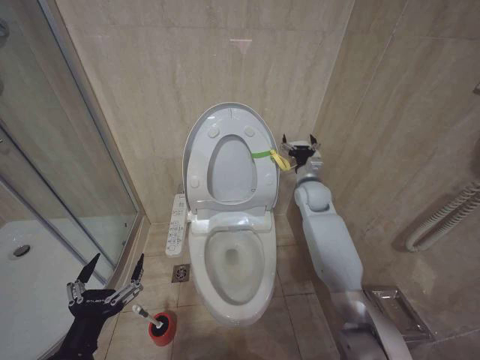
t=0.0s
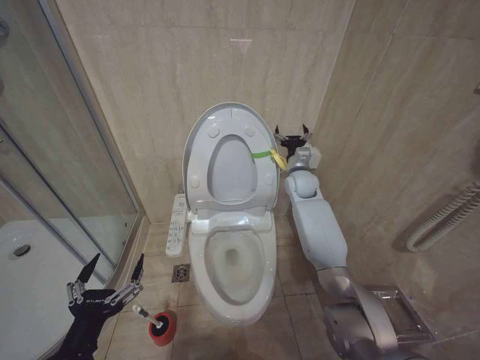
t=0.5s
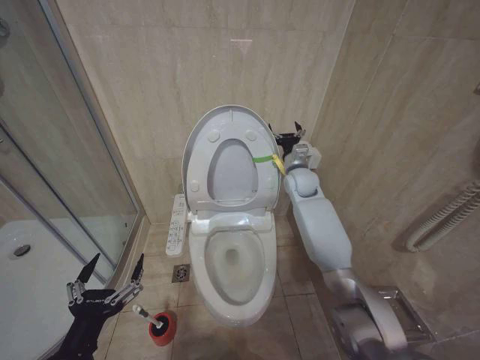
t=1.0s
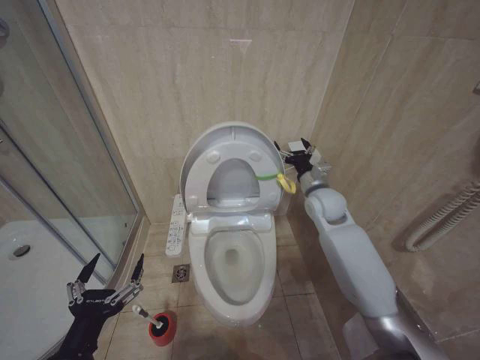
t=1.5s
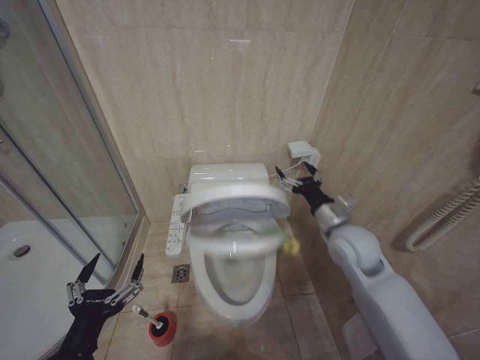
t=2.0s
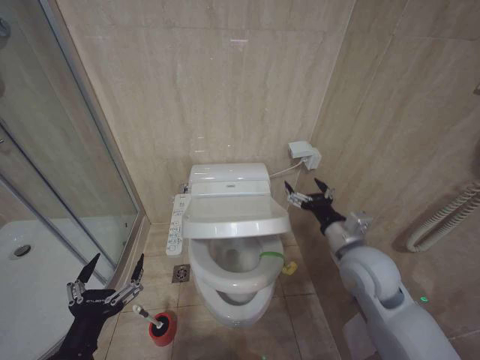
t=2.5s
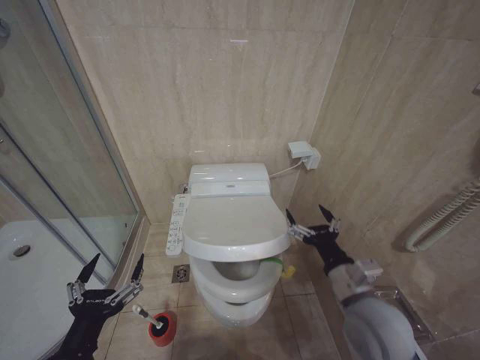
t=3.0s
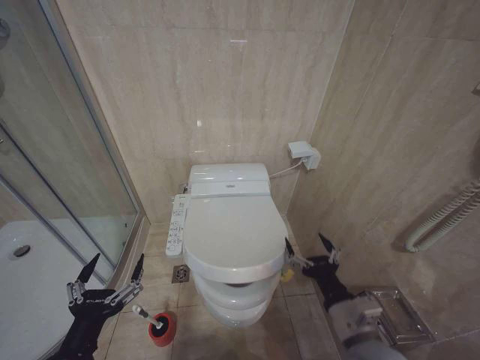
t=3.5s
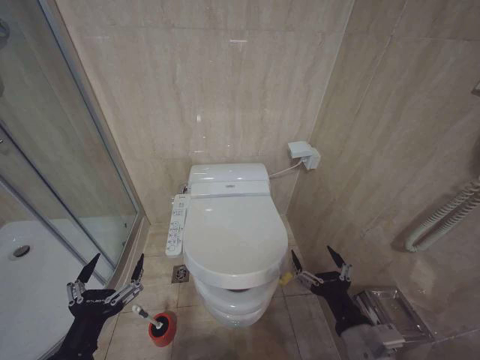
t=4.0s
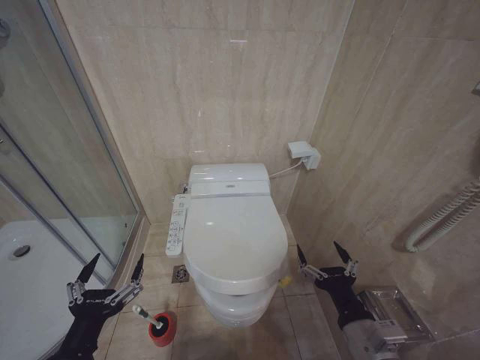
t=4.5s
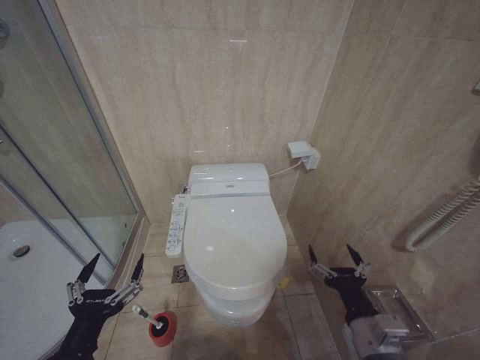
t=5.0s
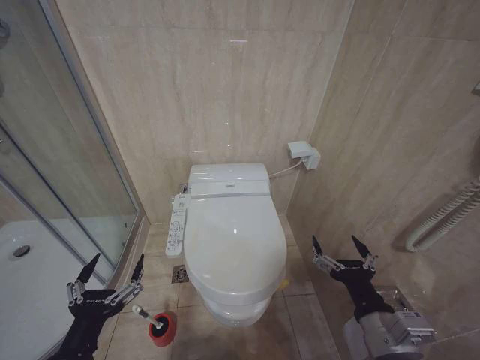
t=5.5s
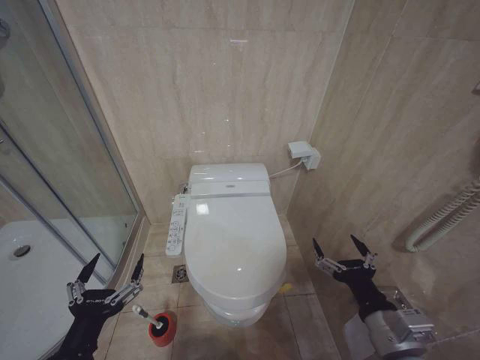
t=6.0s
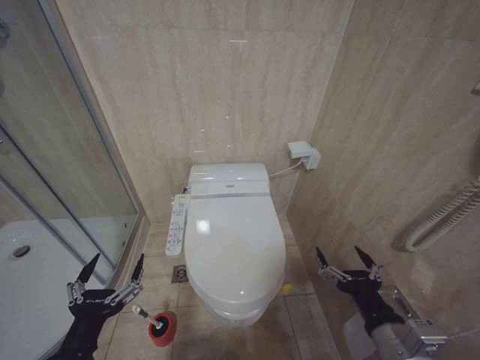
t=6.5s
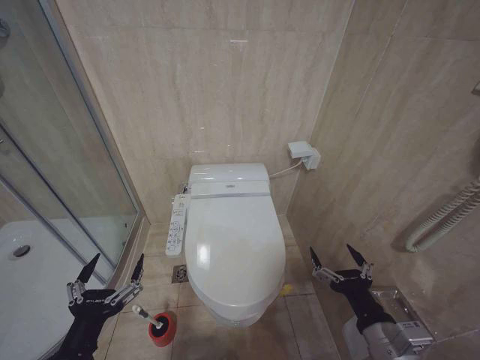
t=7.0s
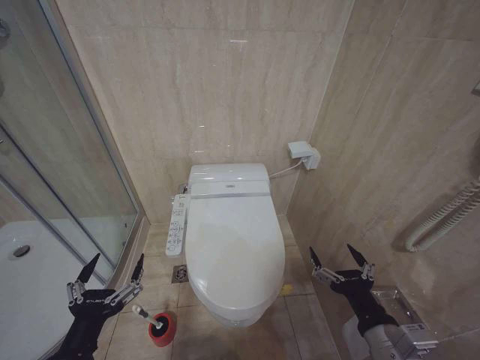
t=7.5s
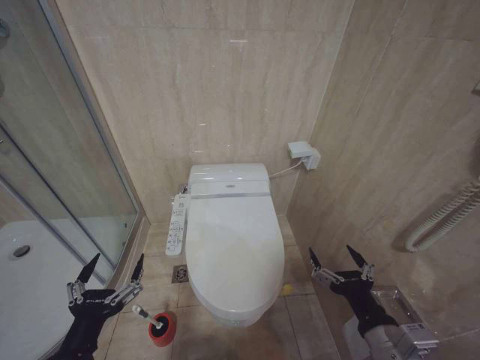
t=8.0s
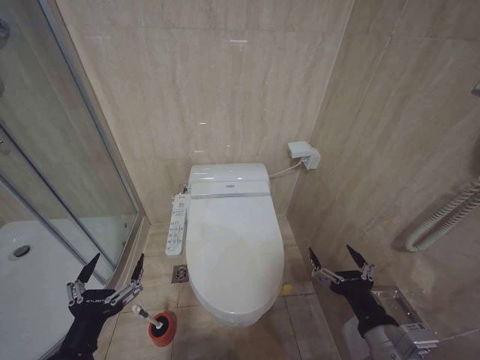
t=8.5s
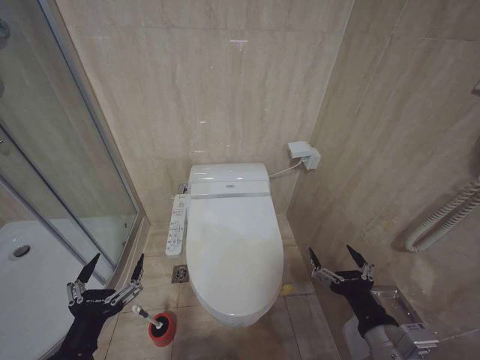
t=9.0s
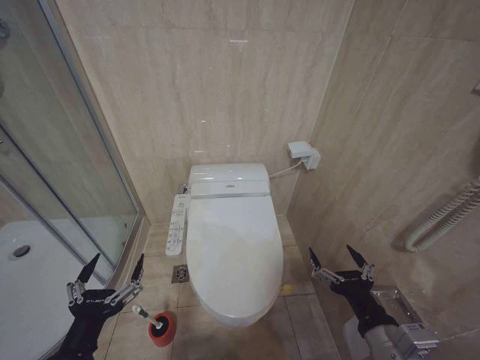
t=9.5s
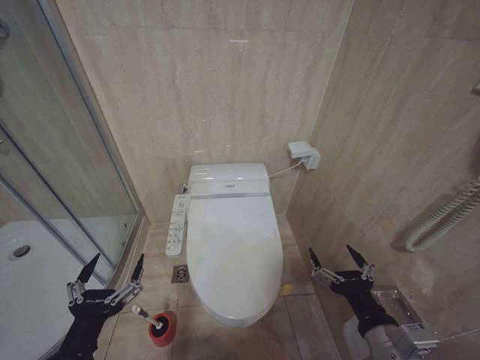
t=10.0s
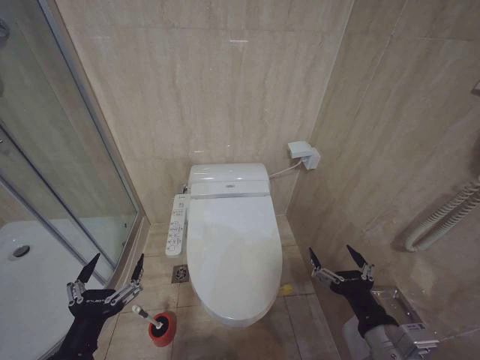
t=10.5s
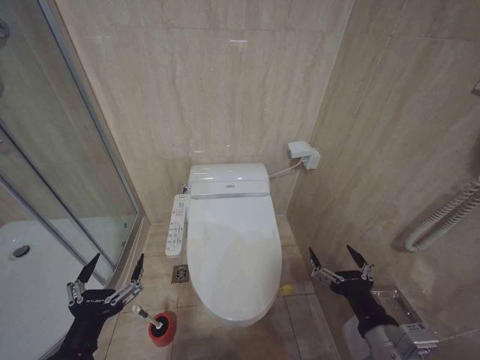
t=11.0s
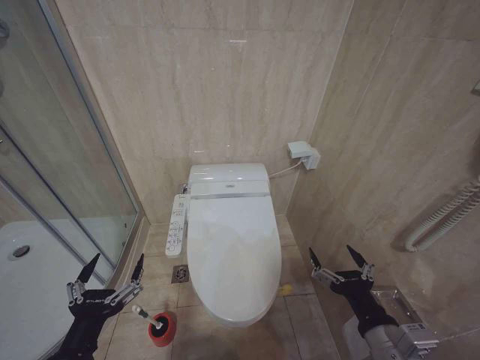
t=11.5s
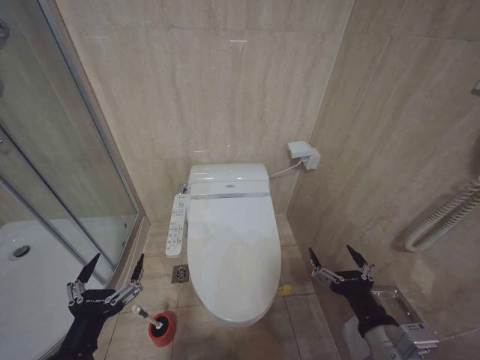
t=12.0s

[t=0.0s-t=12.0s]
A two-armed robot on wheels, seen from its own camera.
Task of the whole recording: Open the toilet lid, clean the toilet bowl with a toilet brush, close the toilet lid, and flush.
t=0.0s to t=2.0s: The right gripper moves backward, about 15 cm.
t=2.0s to t=4.0s: The right gripper shifts roughly 25 cm backward.
t=4.0s to t=6.0s: There are only small adjustments of the grippers.
t=6.0s to t=8.0s: The grippers make only small movements.
t=8.0s to t=12.0s: The two grippers keep their place.

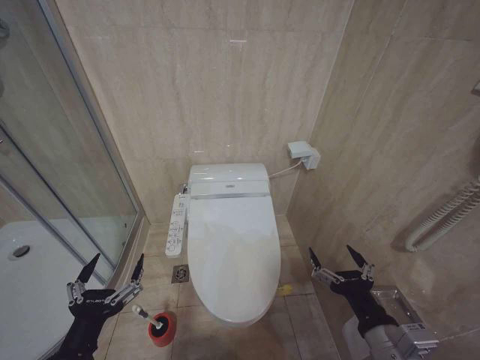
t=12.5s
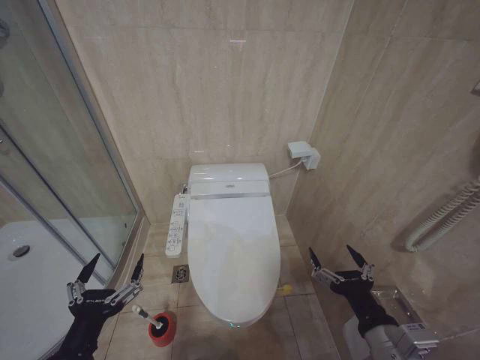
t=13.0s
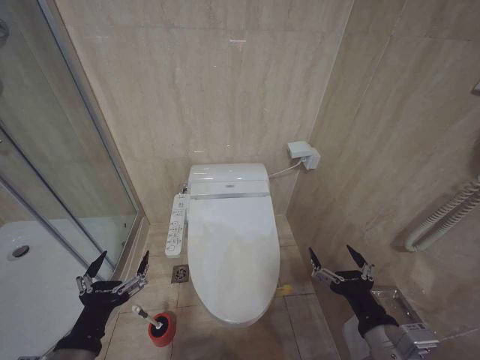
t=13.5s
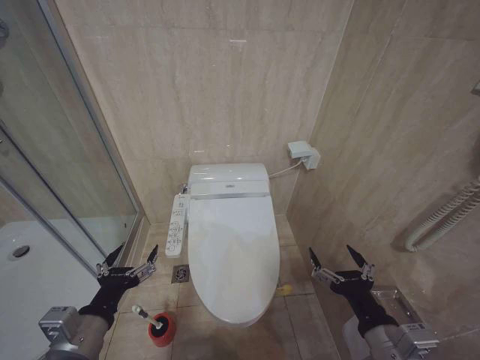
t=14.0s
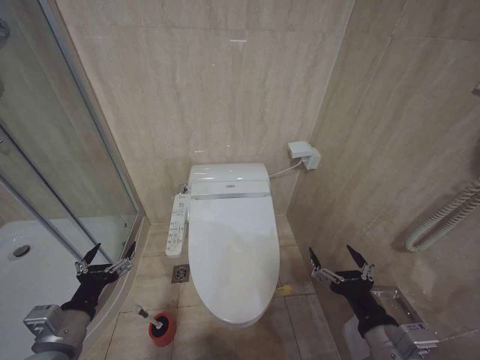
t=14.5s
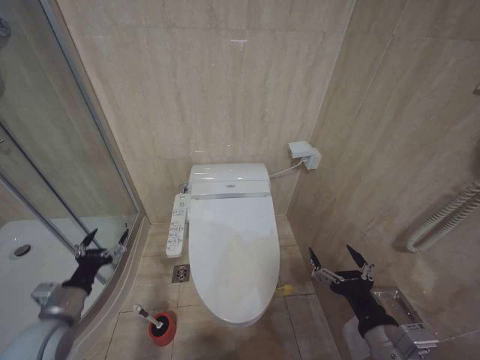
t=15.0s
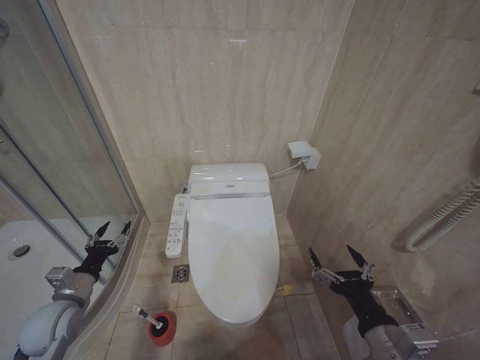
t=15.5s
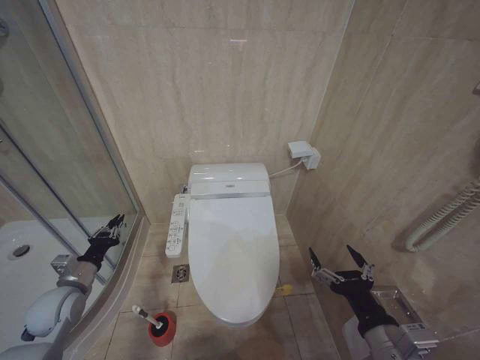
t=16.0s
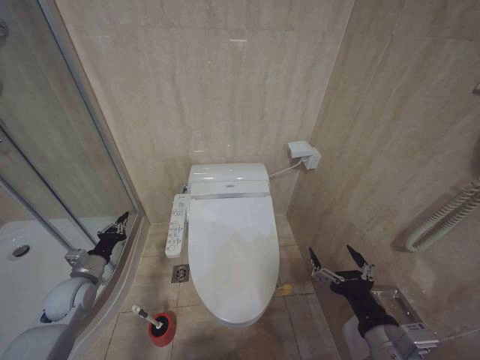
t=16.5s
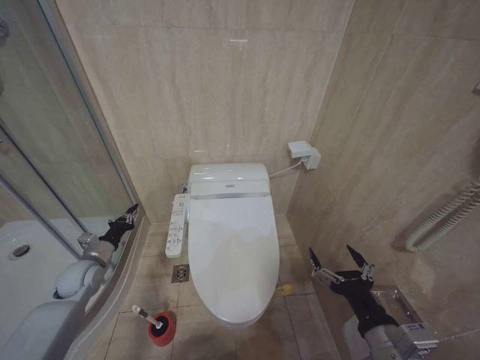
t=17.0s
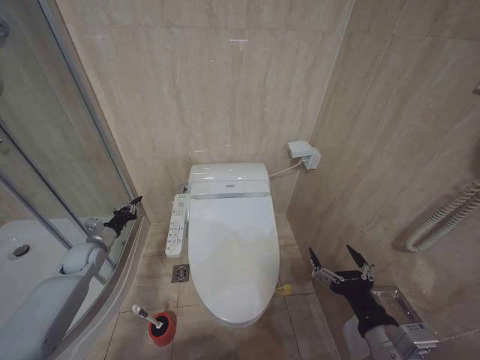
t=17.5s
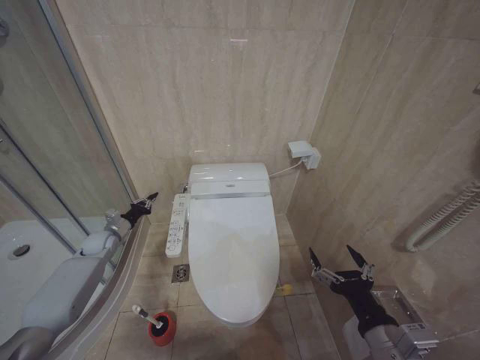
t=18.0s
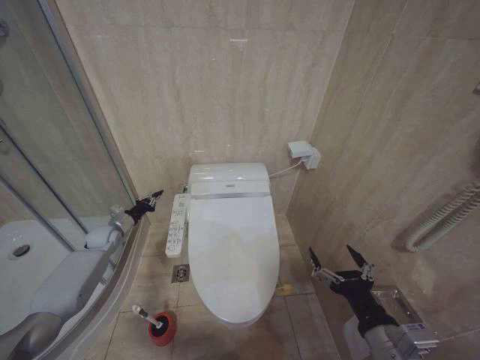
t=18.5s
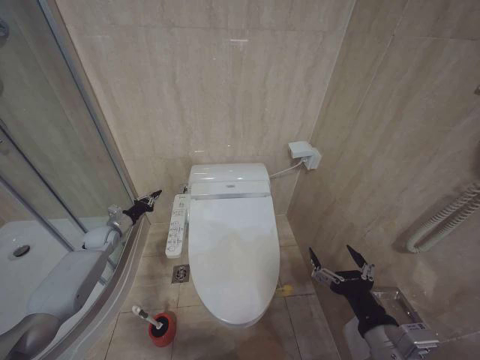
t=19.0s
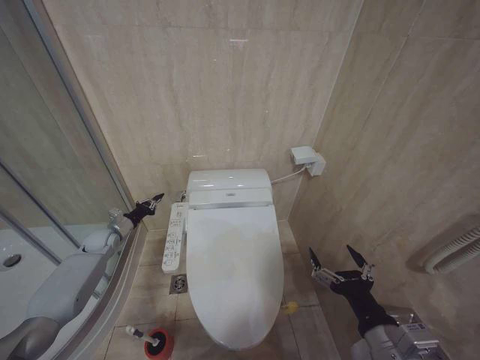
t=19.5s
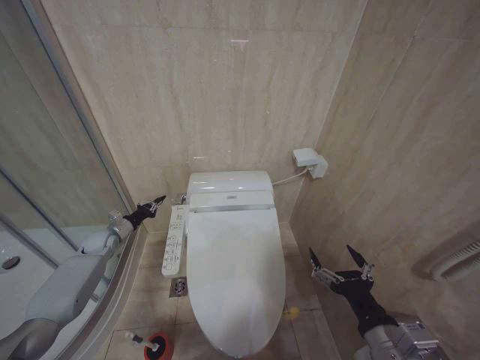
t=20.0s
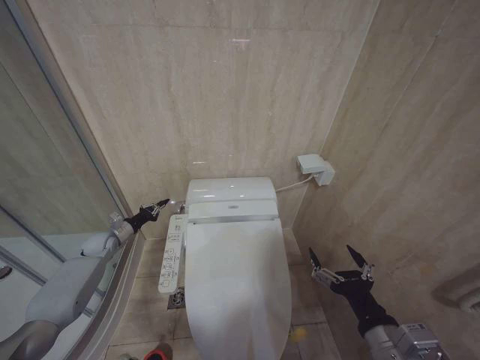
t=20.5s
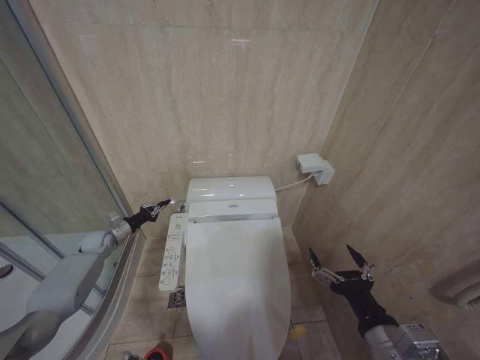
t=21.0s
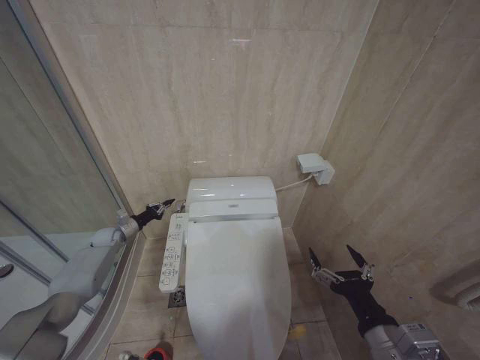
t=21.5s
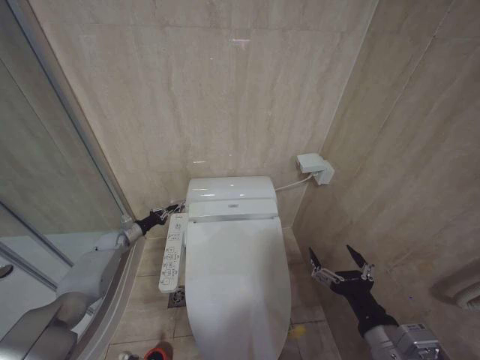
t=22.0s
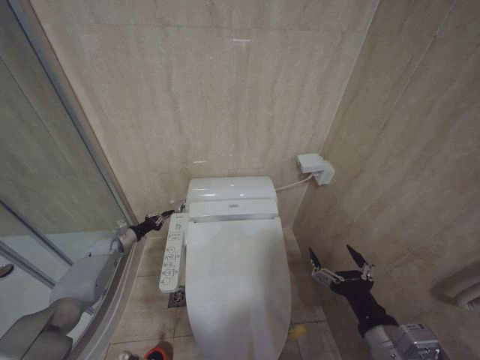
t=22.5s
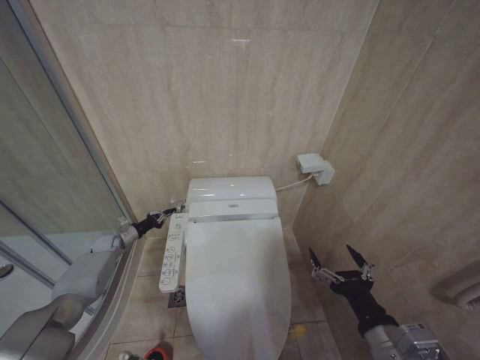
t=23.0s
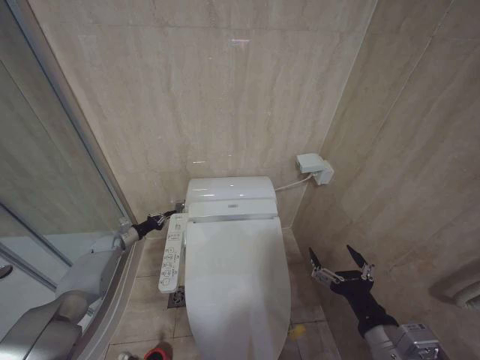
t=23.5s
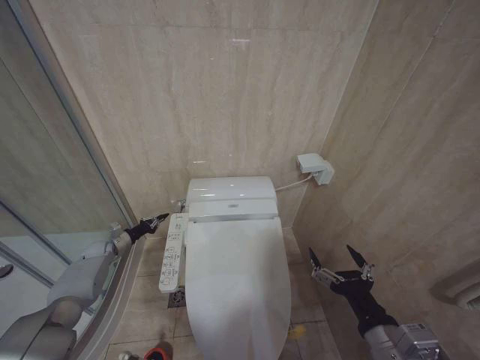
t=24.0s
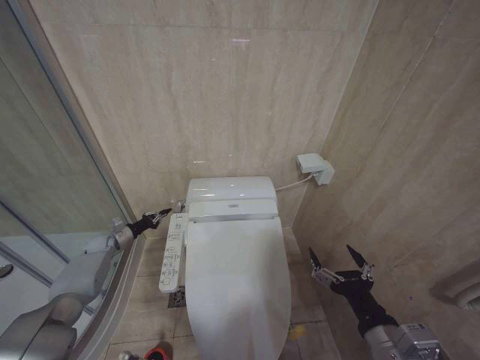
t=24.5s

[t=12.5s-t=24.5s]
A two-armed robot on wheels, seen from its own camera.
Task of the whole recording: Open the toilet lid, clean the toilet bowl with a toilet brush, close the toilet lid, and flush.
t=12.5s to t=14.5s: The left gripper travels forward and to the left by about 10 cm.
t=14.5s to t=16.5s: The left gripper goes about 20 cm forward, to the left and downward, and closes its fingers.
t=16.5s to t=18.5s: The left gripper travels forward by about 20 cm.
t=18.5s to t=20.5s: There are only small adjustments of the grippers.
t=20.5s to t=22.5s: The left gripper heads downward, covering some 5 cm.
t=22.5s to t=24.5s: The grippers move only a little.

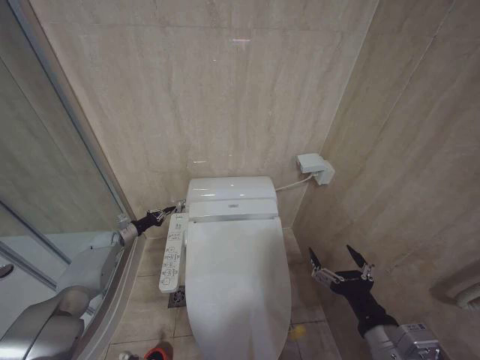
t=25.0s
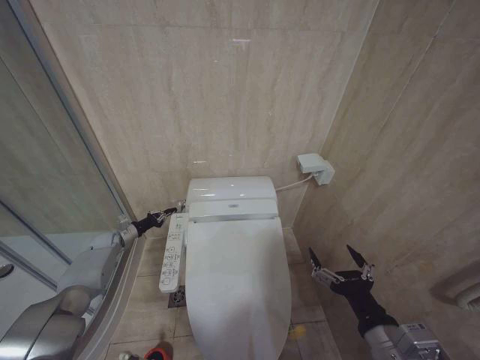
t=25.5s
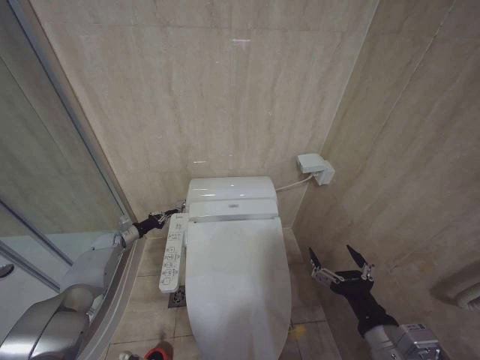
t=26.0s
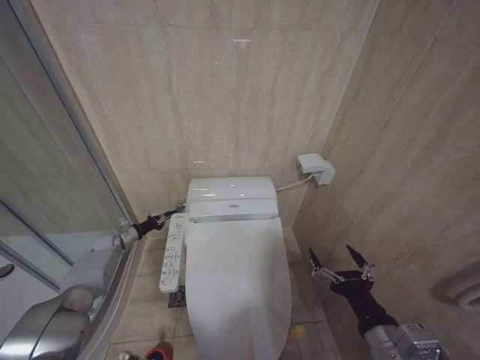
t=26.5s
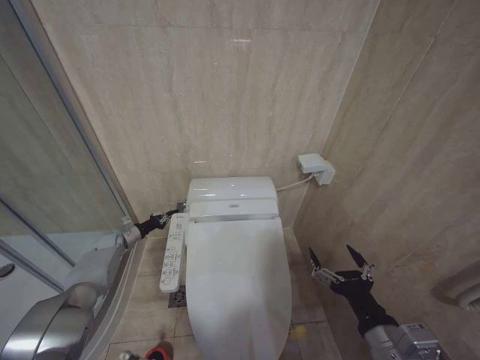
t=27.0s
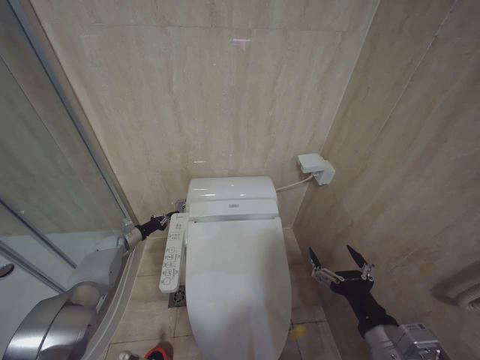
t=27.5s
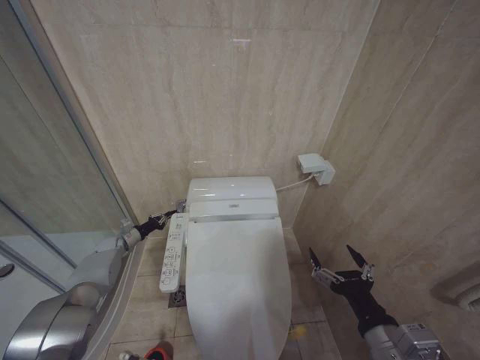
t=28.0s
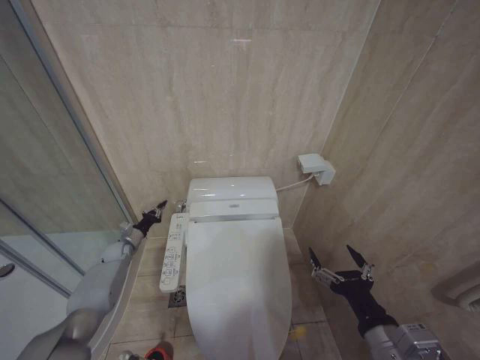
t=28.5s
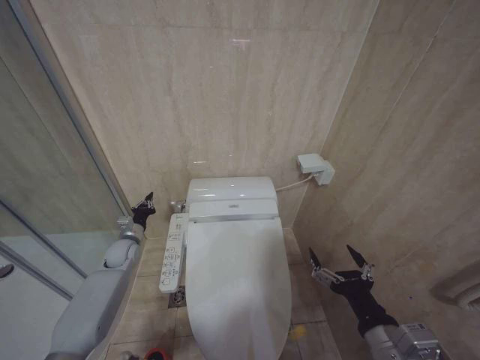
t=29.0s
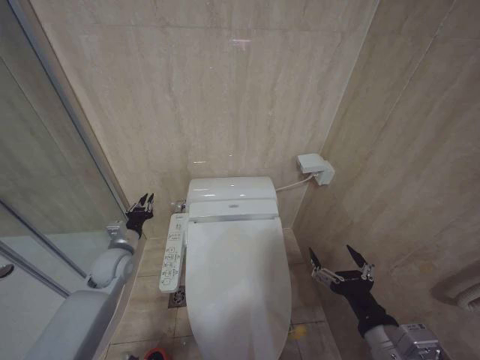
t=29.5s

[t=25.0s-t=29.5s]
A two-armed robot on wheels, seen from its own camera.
Task of the whole recording: Open the toilet lid, clean the toilet bowl with a toilet brush, close the toilet lid, and flush.
t=25.0s to t=27.0s: The grippers make only small movements.
t=27.0s to t=29.5s: The left gripper shifts roughly 20 cm backward, to the right and upward.
